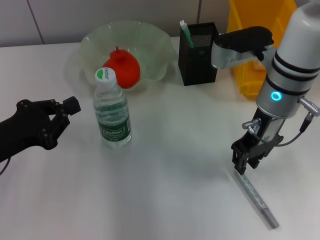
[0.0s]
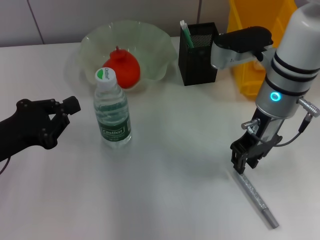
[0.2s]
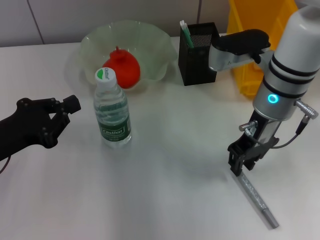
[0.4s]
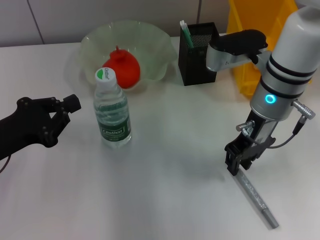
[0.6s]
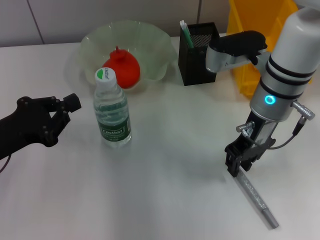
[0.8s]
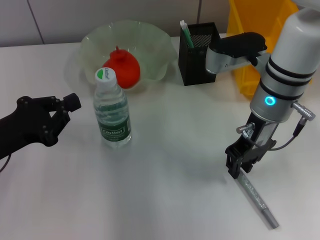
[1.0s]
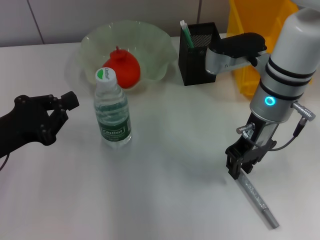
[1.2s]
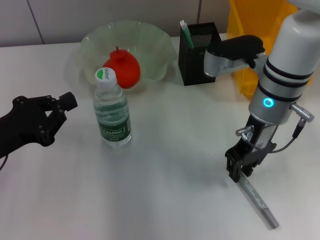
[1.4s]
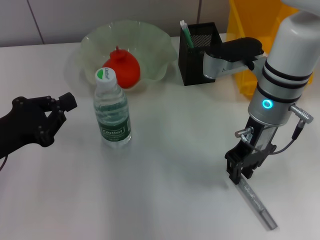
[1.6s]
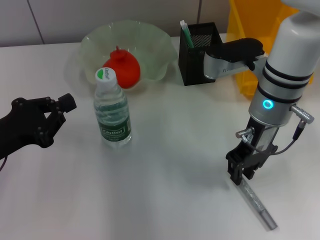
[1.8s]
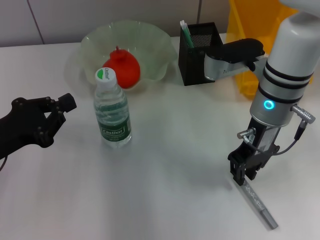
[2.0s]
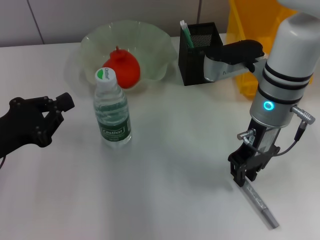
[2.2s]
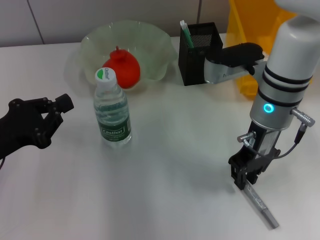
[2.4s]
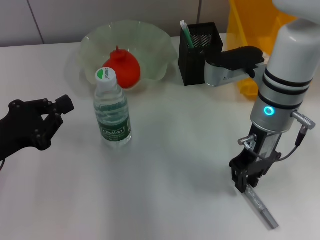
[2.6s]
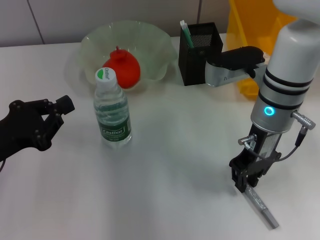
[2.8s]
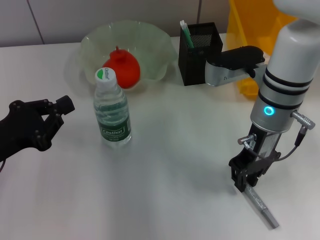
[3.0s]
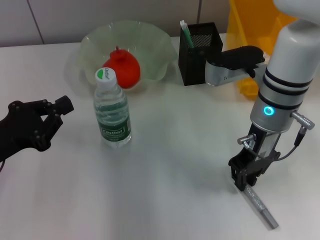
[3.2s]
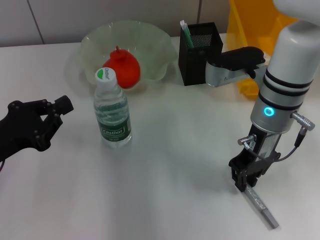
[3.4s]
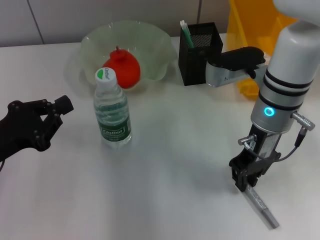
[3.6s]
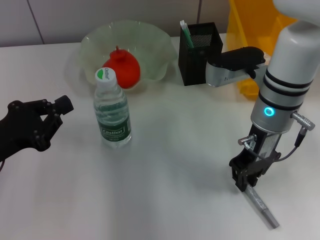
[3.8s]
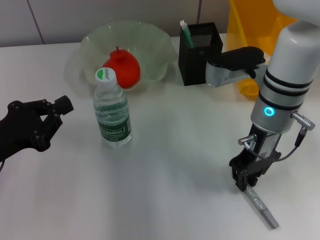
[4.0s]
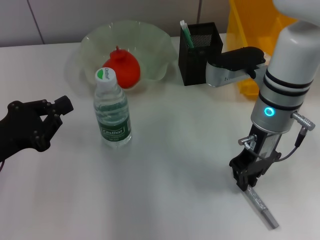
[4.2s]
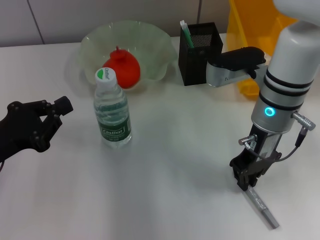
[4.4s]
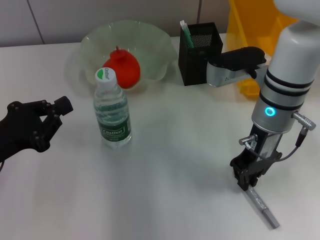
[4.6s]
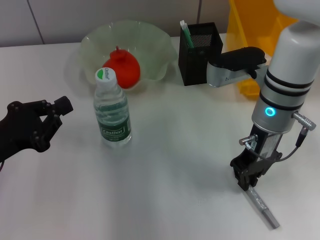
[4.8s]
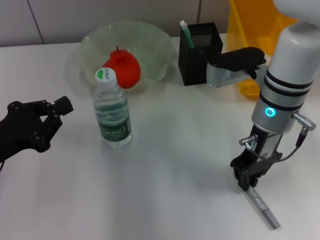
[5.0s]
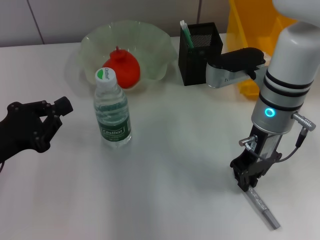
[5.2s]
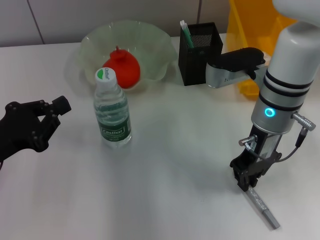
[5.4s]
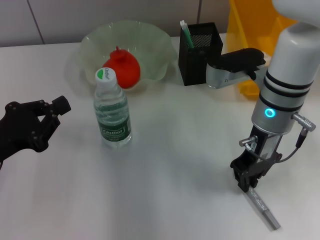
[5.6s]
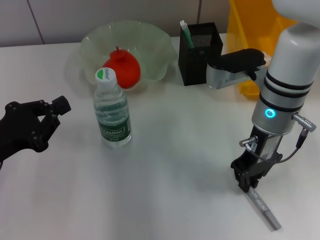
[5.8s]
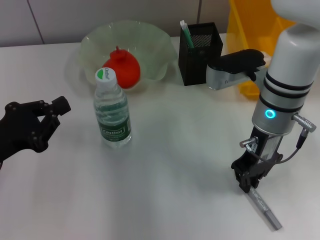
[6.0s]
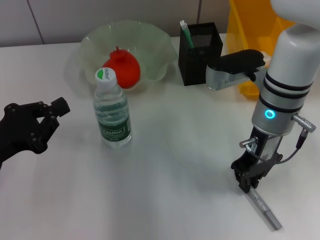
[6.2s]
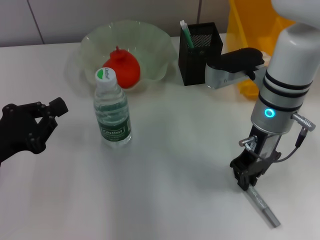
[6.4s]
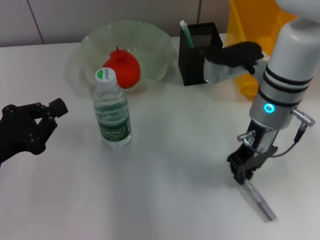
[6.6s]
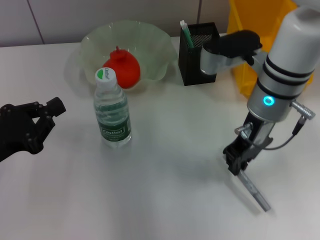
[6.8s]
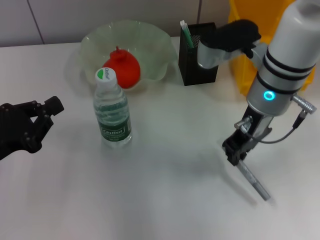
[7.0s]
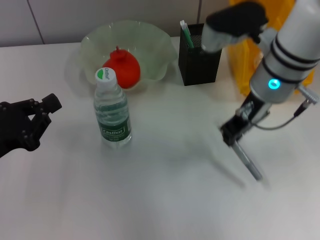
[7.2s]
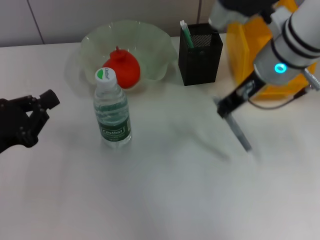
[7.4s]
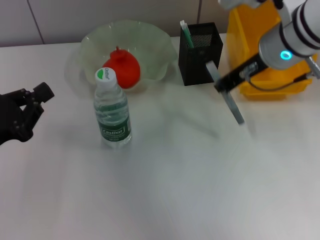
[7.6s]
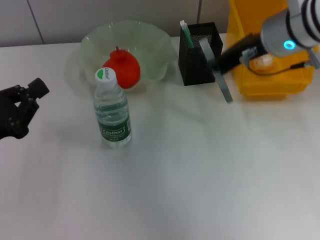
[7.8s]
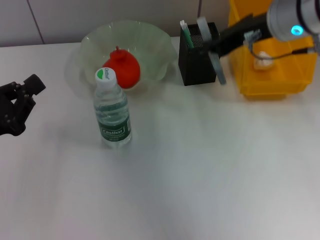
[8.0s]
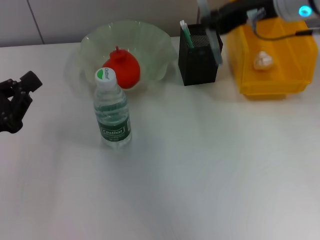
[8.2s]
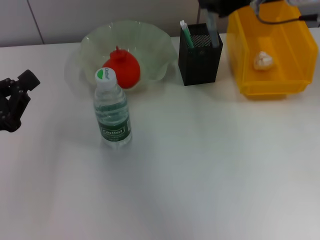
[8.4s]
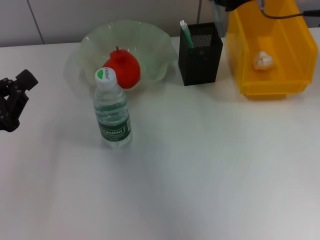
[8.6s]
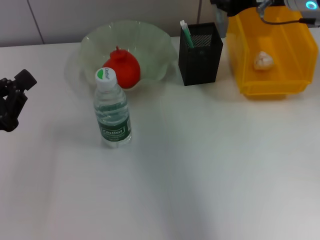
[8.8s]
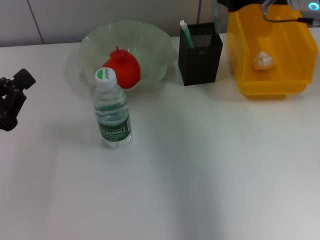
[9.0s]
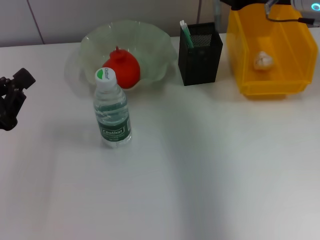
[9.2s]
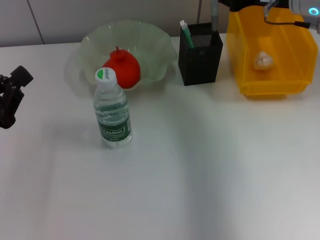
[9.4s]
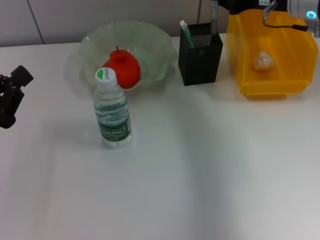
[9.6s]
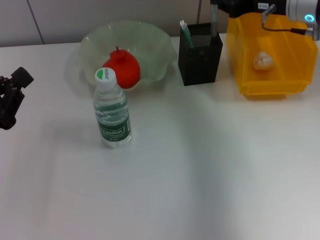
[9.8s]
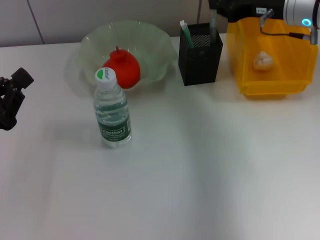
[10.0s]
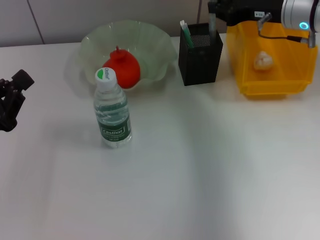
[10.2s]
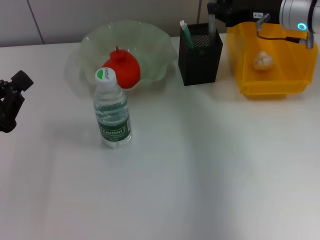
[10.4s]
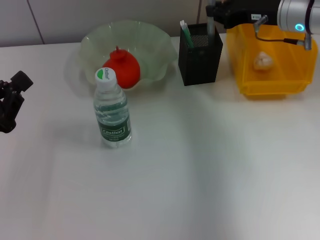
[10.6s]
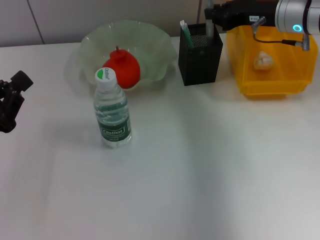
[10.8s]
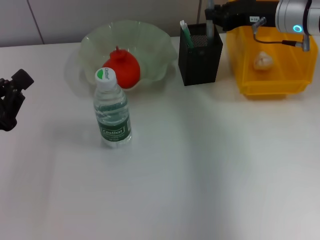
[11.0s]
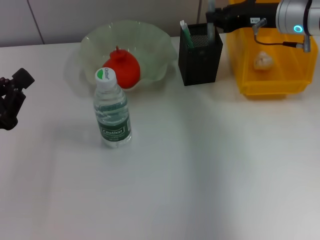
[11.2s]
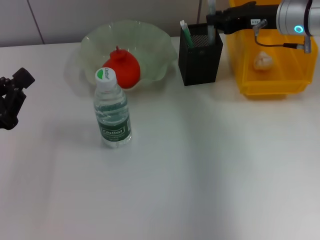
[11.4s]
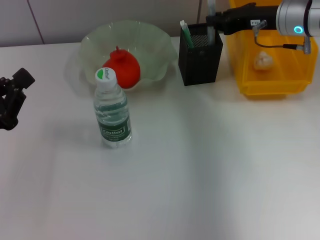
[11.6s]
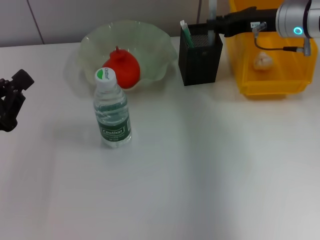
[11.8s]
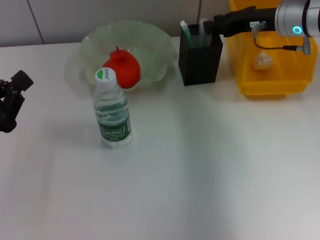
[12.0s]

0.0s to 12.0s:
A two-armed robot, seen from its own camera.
Step, 0.0s to 4.8s: Grab the gray glue with the right hand.
0.0s to 1.6s: There are only small adjustments of the grippers.
1.6s to 6.0s: The two grippers keep their place.
6.0s to 7.6s: The right gripper travels upward by about 10 cm.
7.6s to 9.0s: The right gripper moves to the right, some 5 cm.
9.0s to 10.4s: The right gripper shifts some 5 cm downward.
10.4s to 12.0s: The grippers make only small movements.

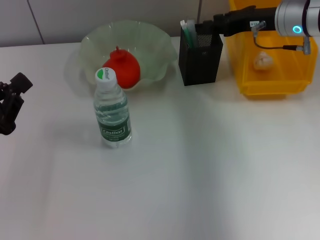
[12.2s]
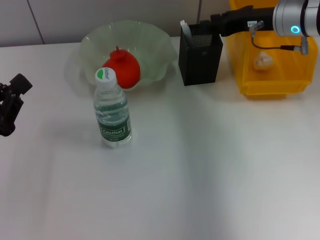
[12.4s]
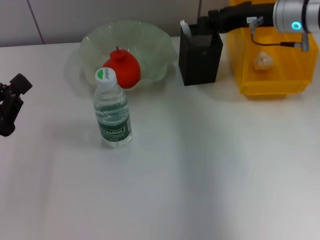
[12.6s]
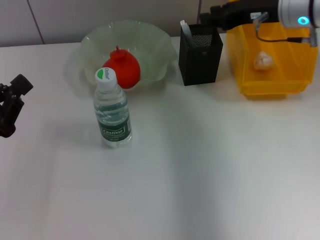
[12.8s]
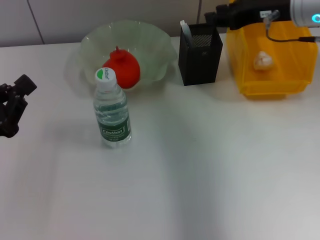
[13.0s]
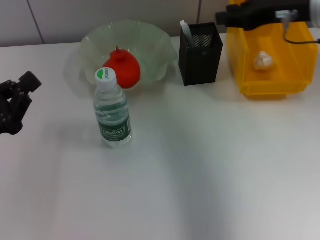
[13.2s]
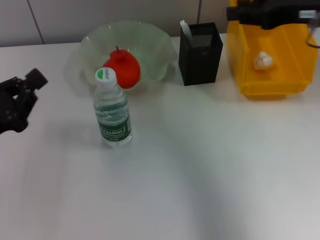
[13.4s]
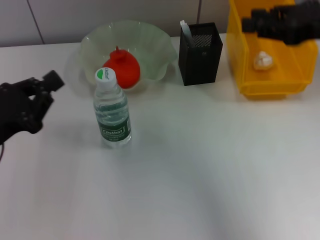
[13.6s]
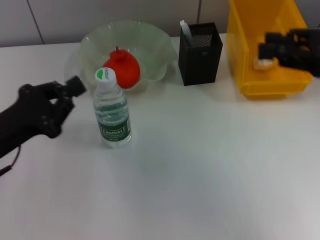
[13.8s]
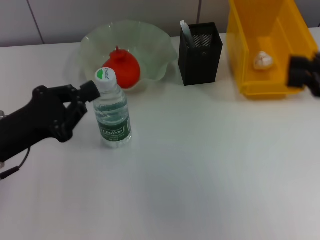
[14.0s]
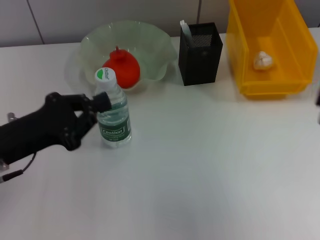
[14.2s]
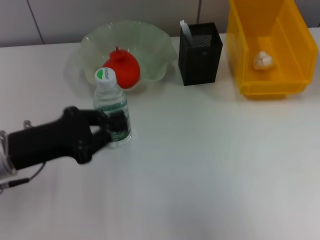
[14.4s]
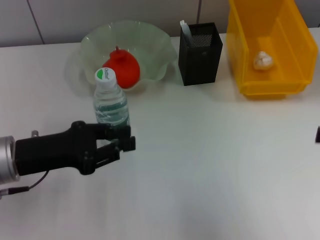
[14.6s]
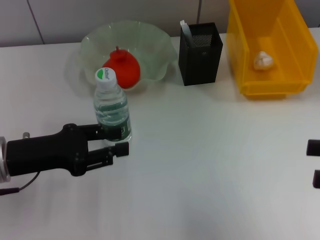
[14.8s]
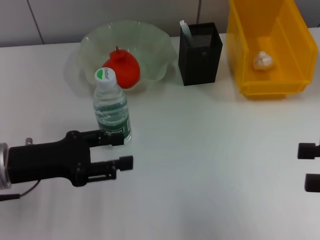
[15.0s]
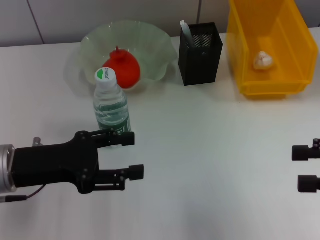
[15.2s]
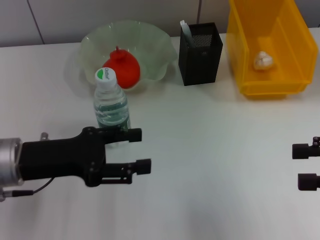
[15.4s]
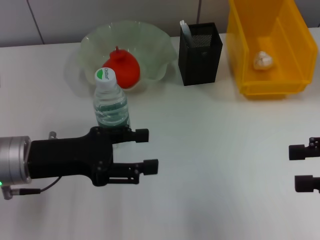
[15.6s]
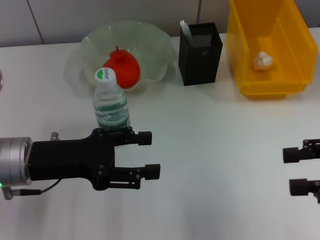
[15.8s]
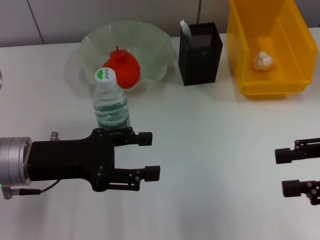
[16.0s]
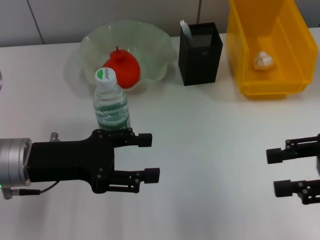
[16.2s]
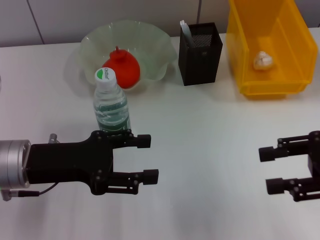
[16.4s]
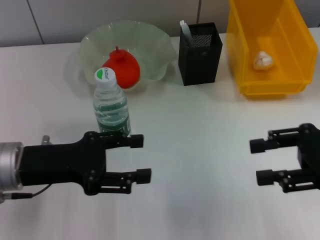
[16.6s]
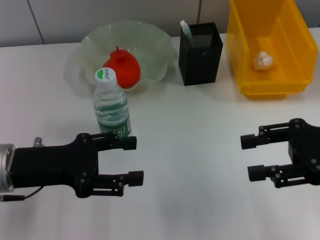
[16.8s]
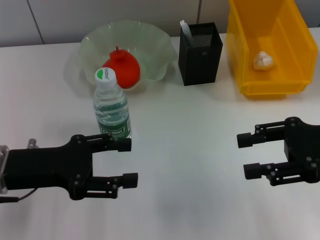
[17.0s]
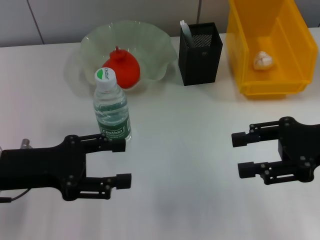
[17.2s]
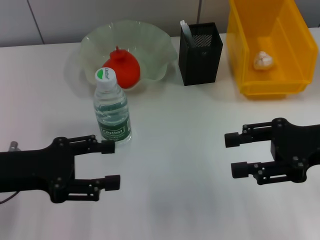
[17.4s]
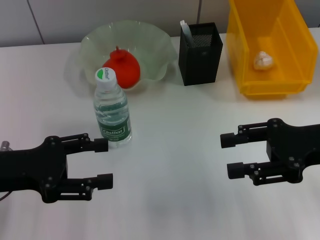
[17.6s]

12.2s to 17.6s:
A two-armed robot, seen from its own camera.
12.2s to 13.6s: The right gripper is displaced backward and upward by some 20 cm.
13.6s to 15.0s: The right gripper goes approximately 15 cm backward, downward and to the right, and opens; the left gripper opens its fingers.
15.0s to 16.2s: The left gripper opens.
16.2s to 17.6s: The left gripper goes some 5 cm to the left. The right gripper moves roughly 5 cm.

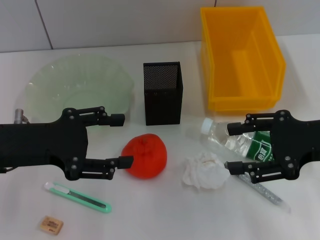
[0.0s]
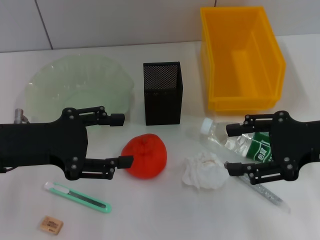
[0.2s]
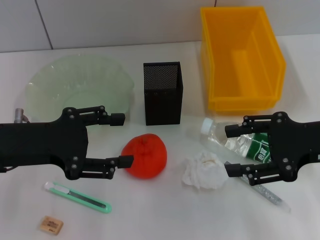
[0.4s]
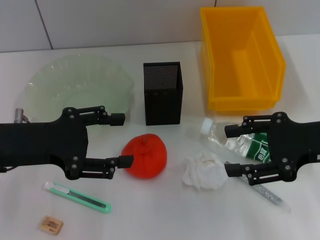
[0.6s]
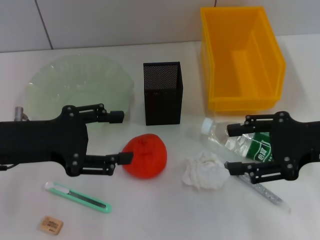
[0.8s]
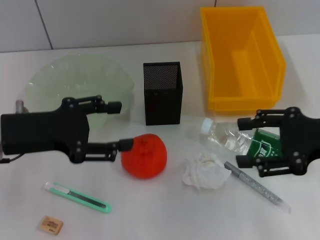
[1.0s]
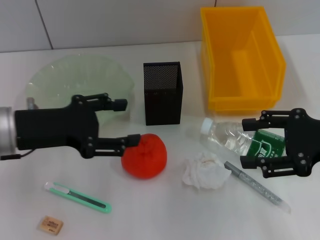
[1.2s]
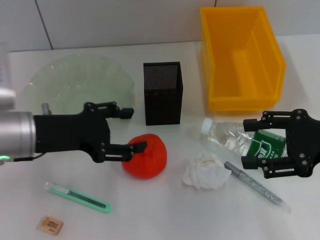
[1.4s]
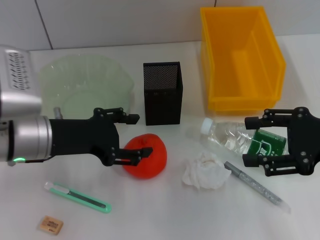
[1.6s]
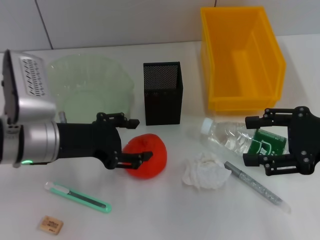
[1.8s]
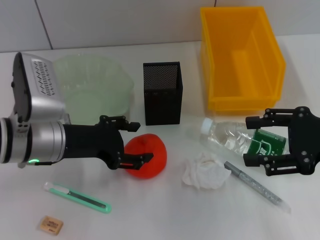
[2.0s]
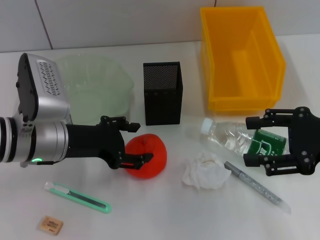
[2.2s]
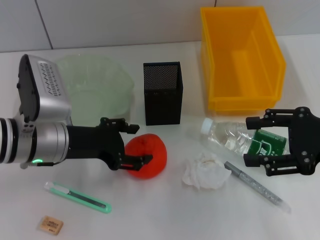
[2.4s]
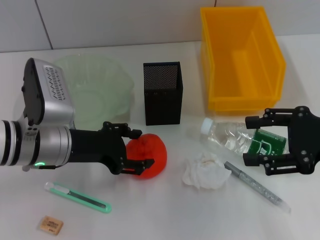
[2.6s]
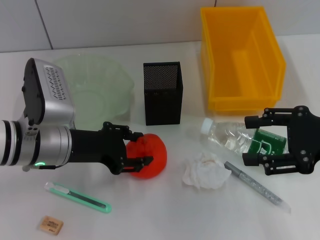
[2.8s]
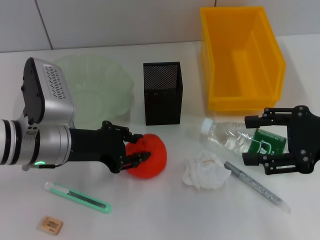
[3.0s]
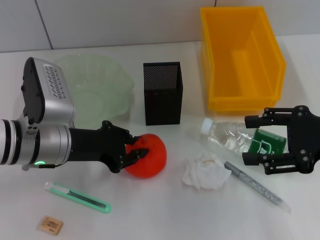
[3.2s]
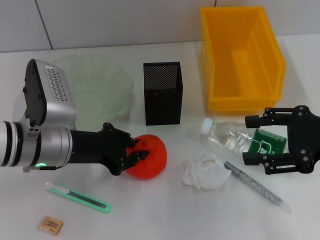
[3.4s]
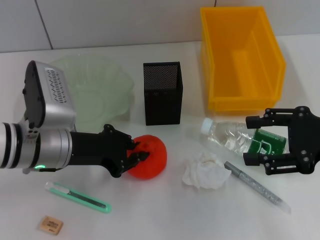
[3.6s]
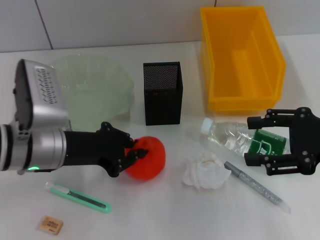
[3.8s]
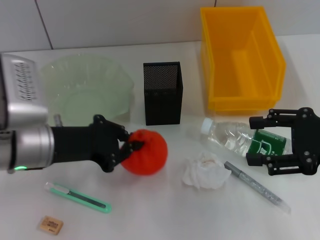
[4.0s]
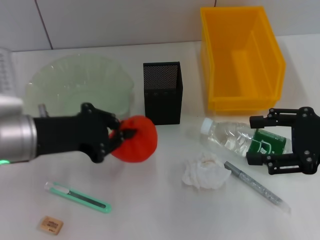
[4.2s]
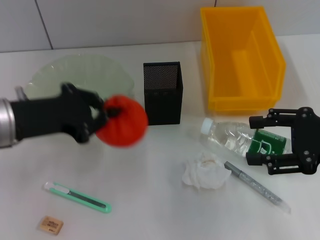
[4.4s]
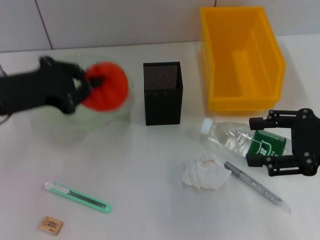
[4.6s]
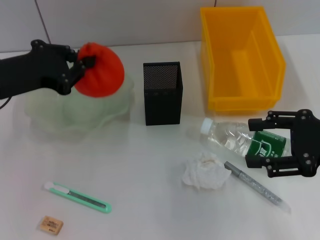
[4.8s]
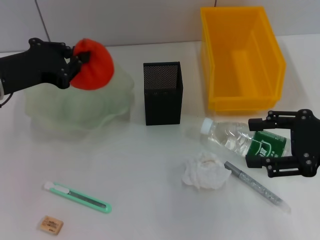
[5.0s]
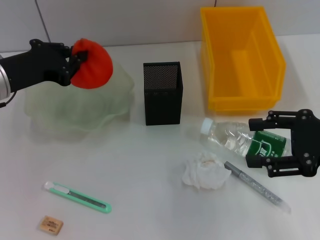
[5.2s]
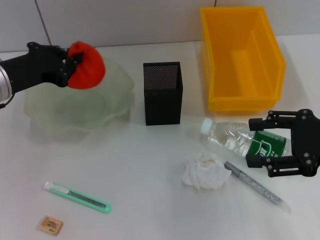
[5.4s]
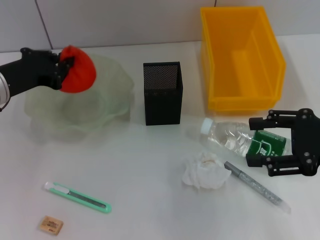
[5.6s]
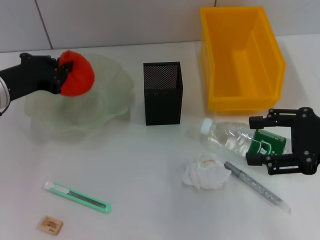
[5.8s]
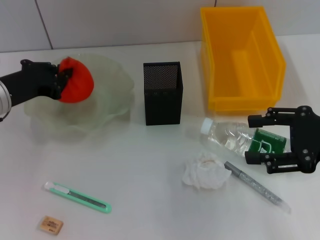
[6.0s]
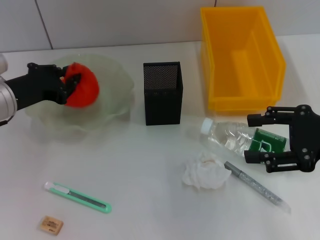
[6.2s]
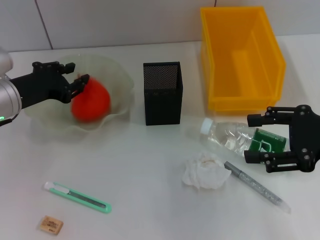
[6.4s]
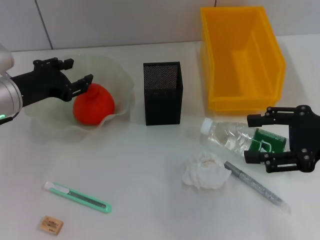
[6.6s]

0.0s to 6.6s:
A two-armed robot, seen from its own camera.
Step, 0.0s to 3.4s: Grab the orange with the left hand.
Step, 3.6s to 6.4s: Place the orange into the fruit bowl with the left hand.
0.0s to 1.6s: The left gripper shifts by some 5 cm.
1.6s to 3.2s: The left gripper closes.
3.2s to 5.0s: The left gripper heads to the left and upward, covering about 10 cm.
5.0s to 6.6s: The left gripper shifts by some 5 cm, and opens.
